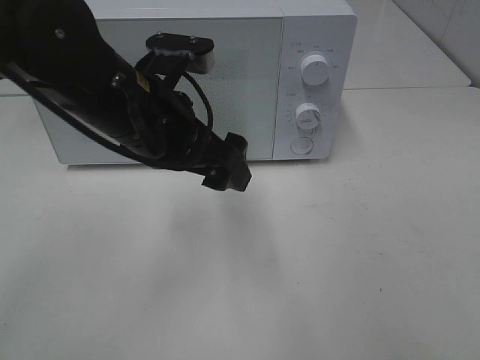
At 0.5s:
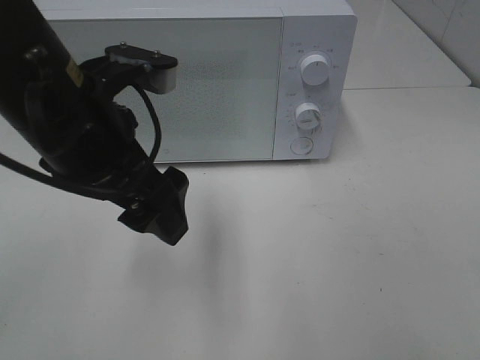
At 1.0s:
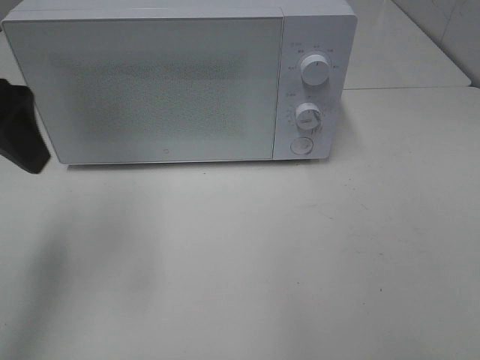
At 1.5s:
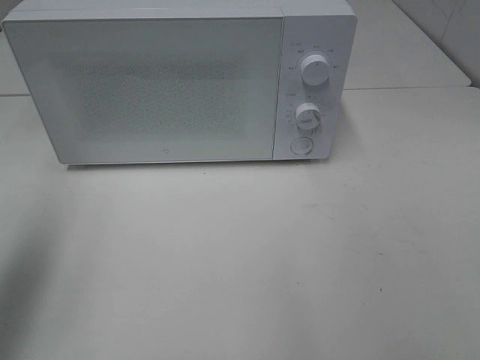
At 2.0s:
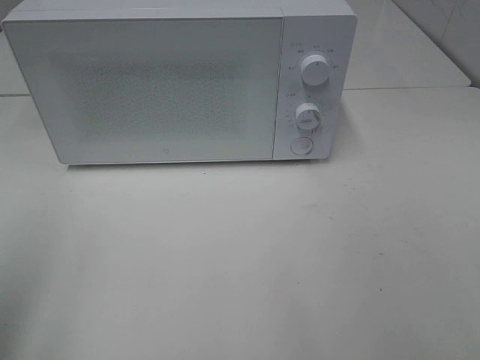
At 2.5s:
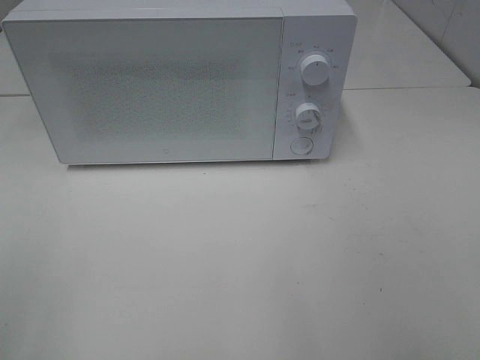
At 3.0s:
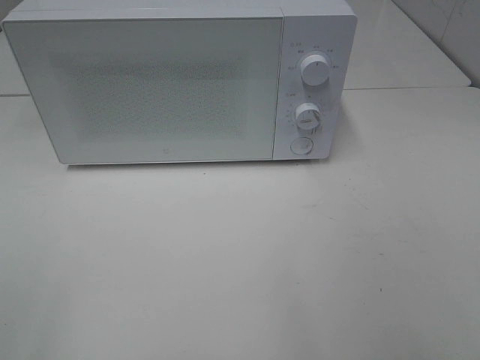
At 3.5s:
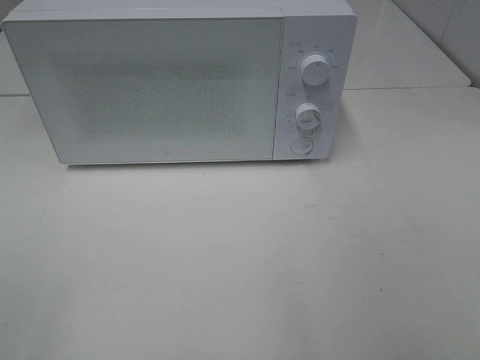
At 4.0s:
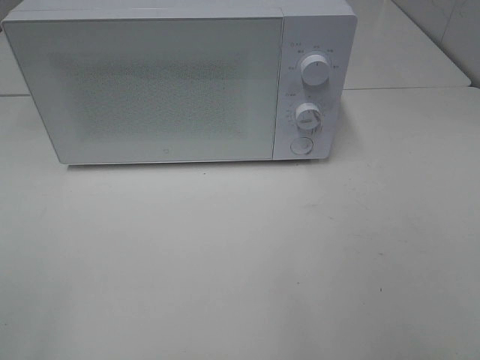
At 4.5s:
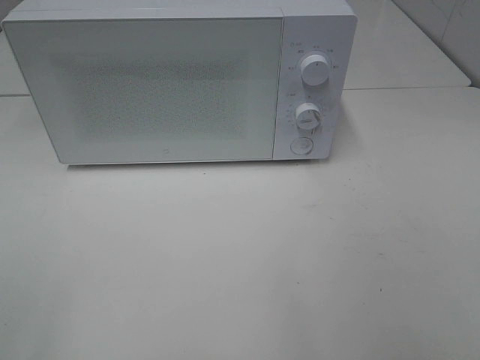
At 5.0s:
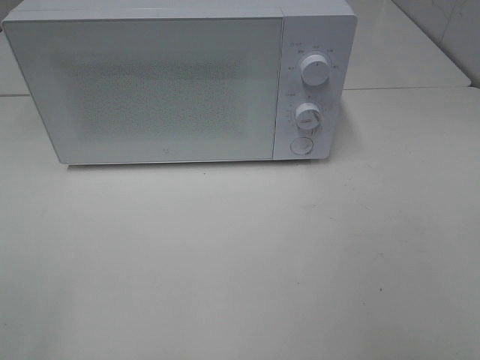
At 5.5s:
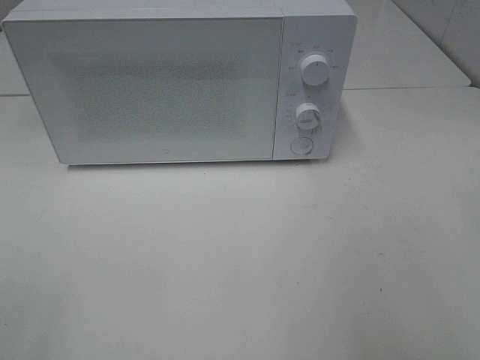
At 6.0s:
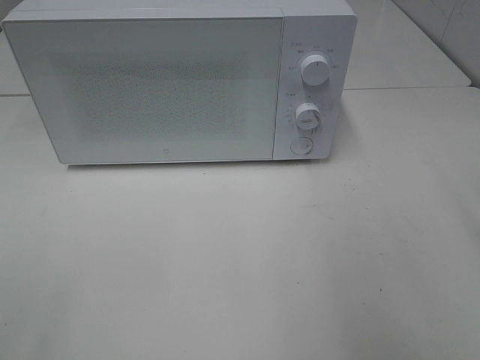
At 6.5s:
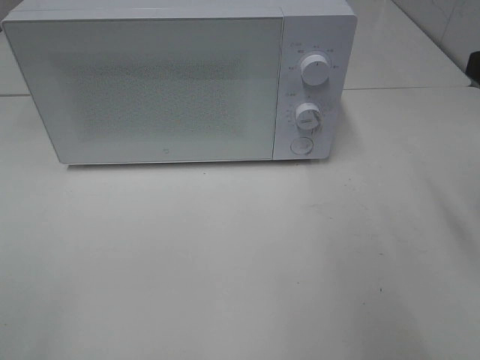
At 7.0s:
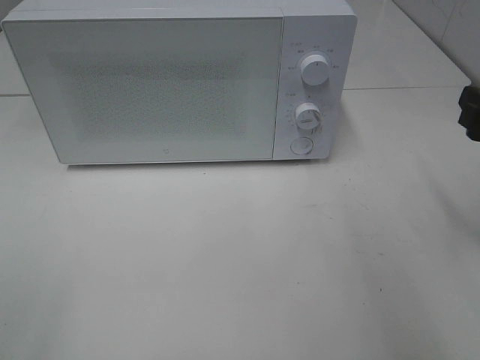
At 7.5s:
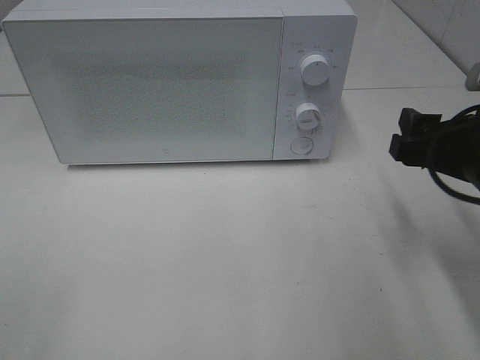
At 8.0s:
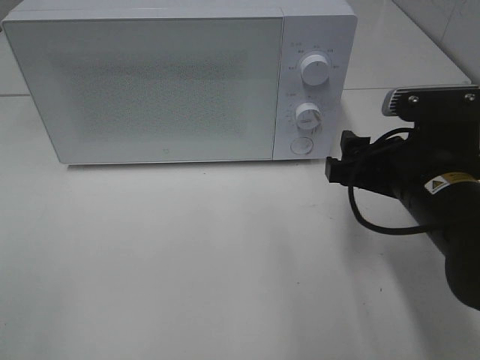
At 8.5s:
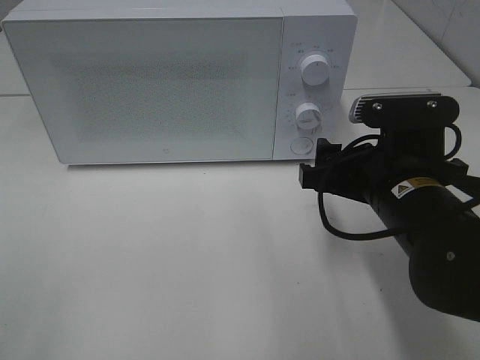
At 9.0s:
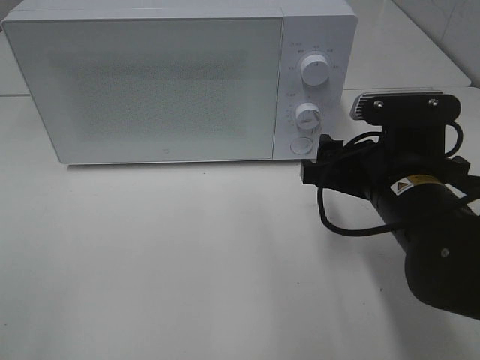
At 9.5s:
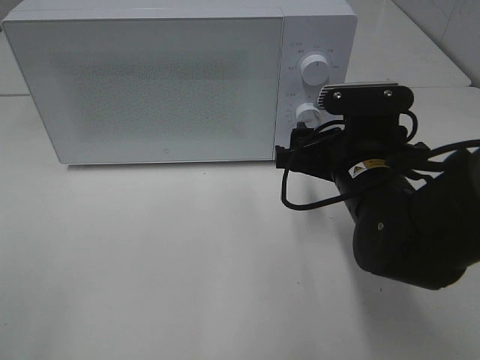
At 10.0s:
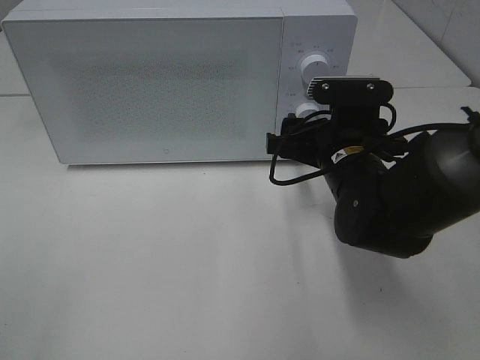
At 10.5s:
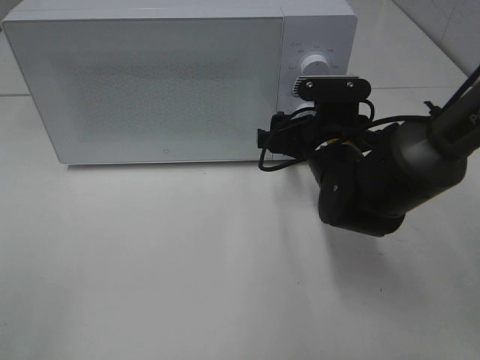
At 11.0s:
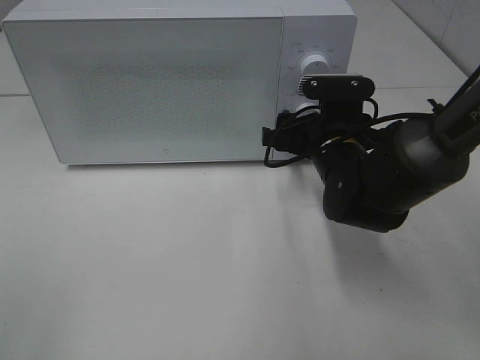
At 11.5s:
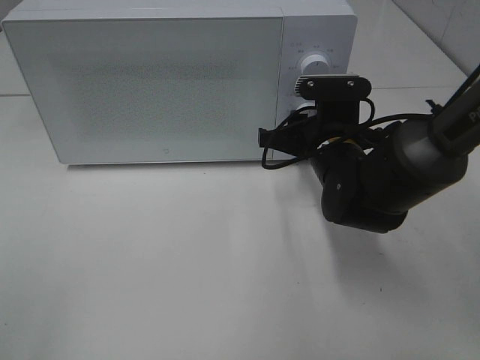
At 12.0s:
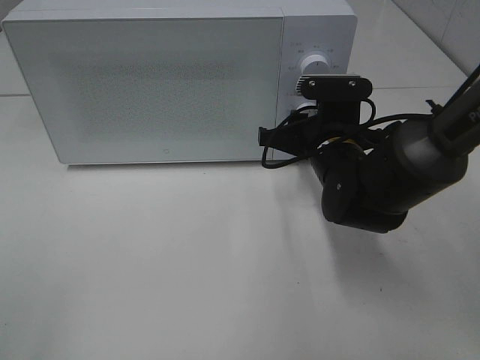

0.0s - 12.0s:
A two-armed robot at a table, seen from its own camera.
Task of the whole recording: Heat Sandwich.
0.0s - 2.0s: The left gripper moves to the left and backward, about 30 cm.
6.0s - 8.0s: The right gripper moves downward and to the left, about 20 cm.
8.0s - 10.0s: The right gripper goes some 10 cm forward and to the left.
10.0s - 12.0s: The right gripper closes.

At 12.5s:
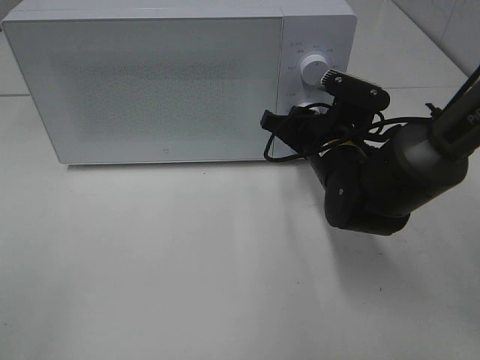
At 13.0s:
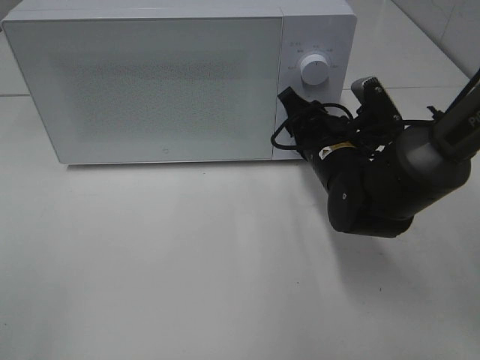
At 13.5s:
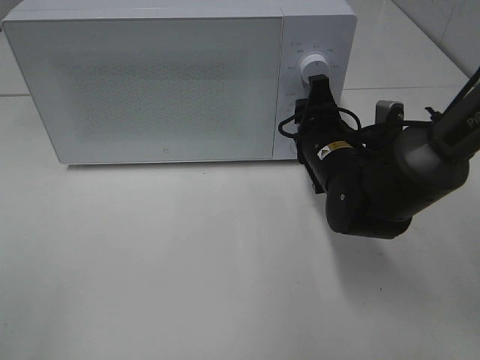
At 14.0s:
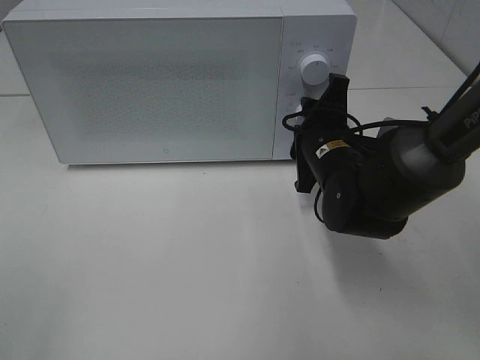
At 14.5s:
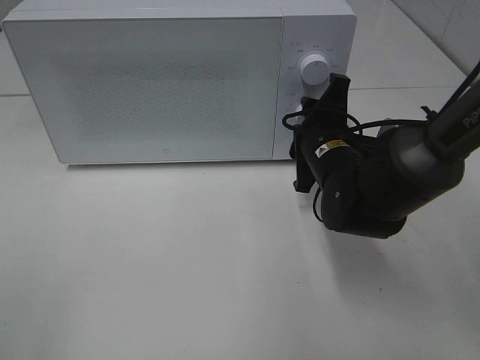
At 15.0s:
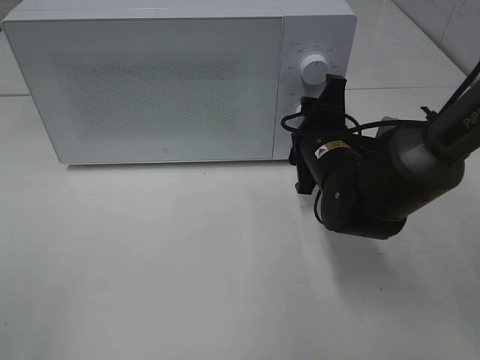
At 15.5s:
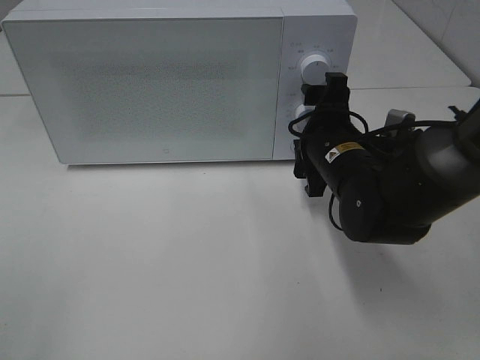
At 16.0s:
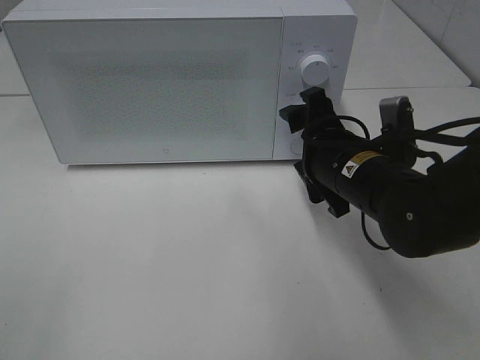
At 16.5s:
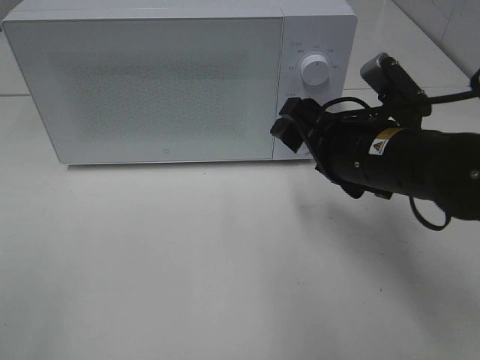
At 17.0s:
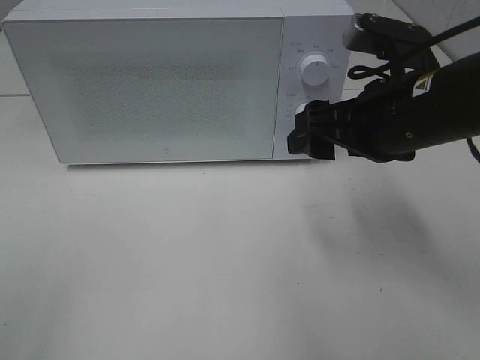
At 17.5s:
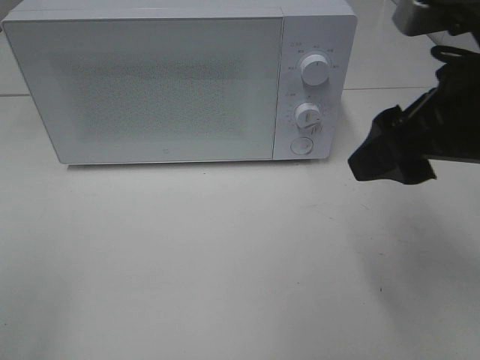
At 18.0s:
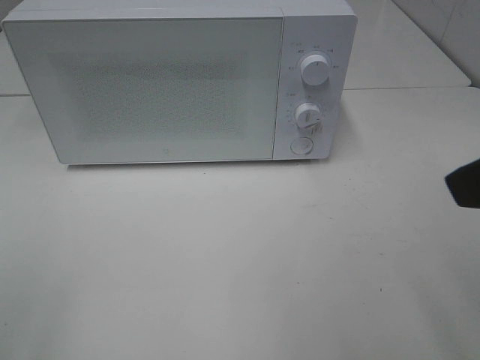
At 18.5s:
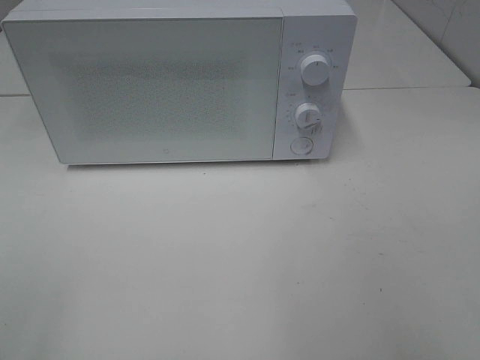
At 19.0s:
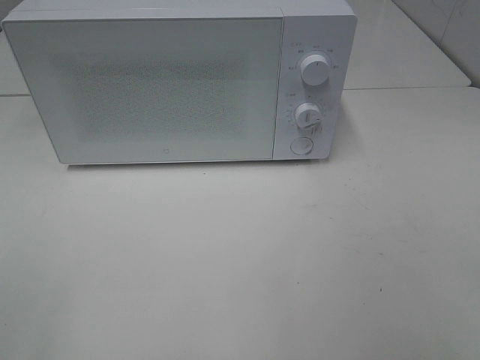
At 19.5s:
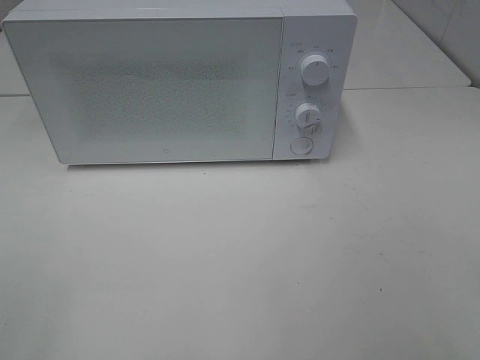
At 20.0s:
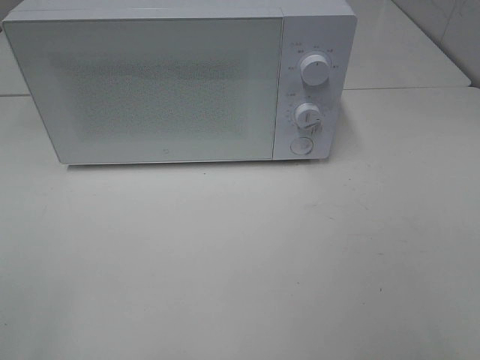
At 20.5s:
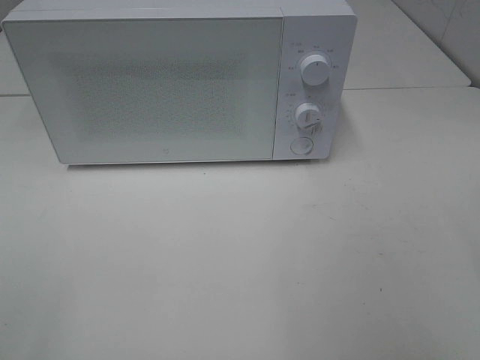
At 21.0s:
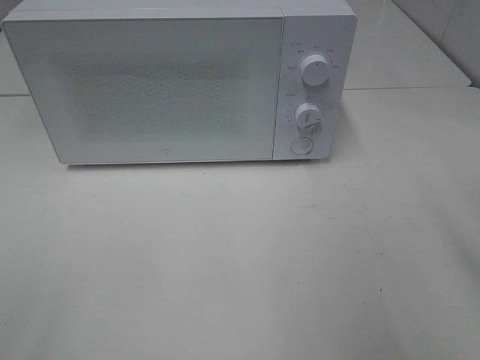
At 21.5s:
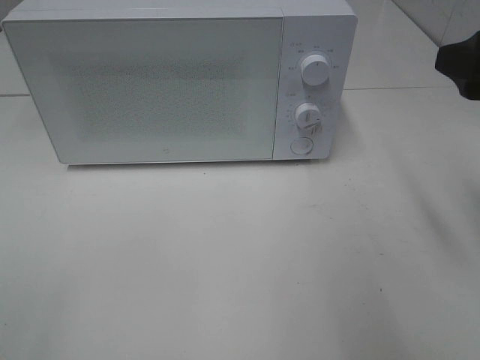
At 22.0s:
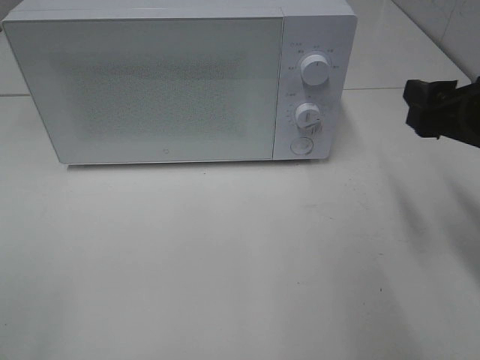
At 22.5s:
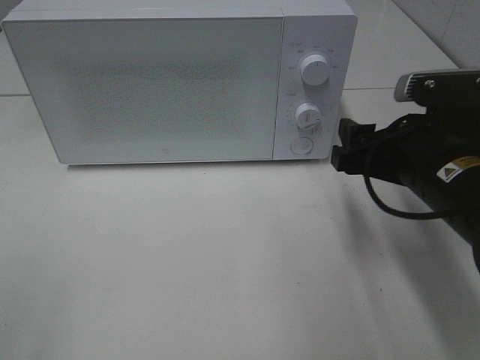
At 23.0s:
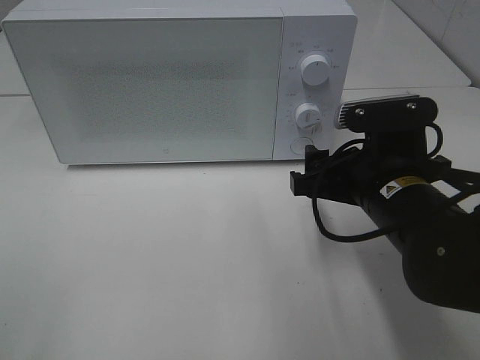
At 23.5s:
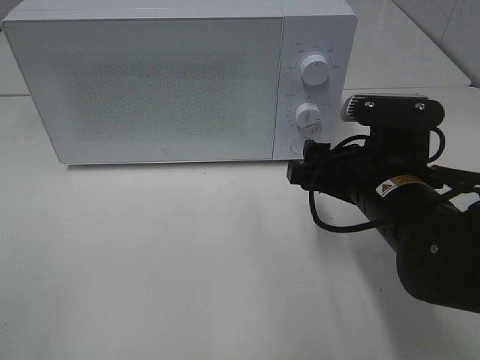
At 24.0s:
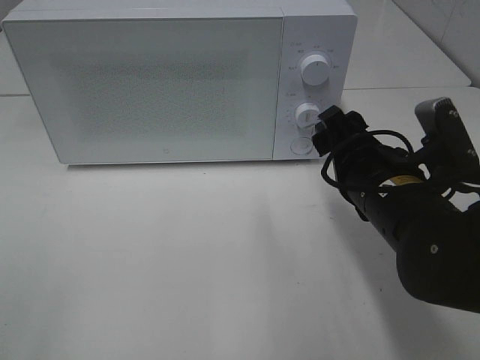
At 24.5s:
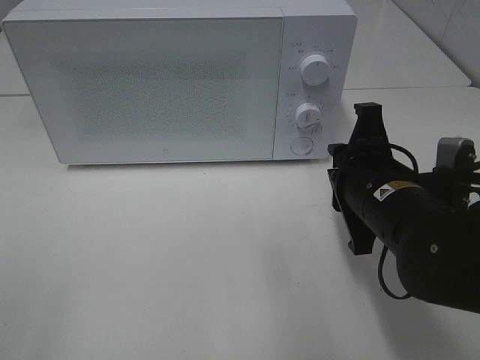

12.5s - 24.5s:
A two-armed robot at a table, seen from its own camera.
Task of the whole recording: Heat Sandwich.
Step, 12.5s - 15.5s: Right hand: twist timer button.
14.5s - 16.5s: The right gripper is displaced backward and upward by some 10 cm, and opens its fingers.
16.5s - 18.5s: The right gripper is displaced backward, upward and to the right by approximately 30 cm.
20.5s - 22.5s: The right gripper goes approximately 25 cm forward, downward and to the left.
22.5s - 24.5s: The right gripper ends up approximately 5 cm from where it was, and closes up.

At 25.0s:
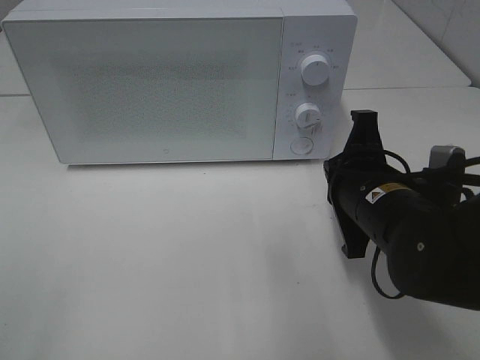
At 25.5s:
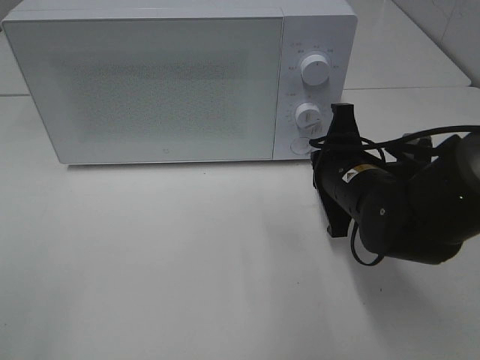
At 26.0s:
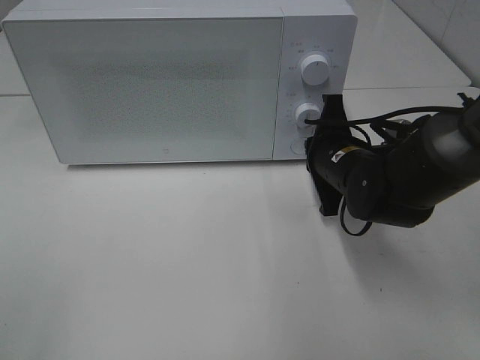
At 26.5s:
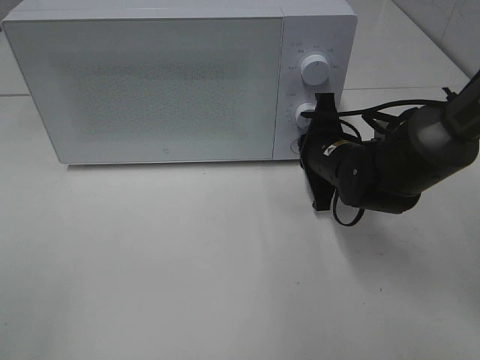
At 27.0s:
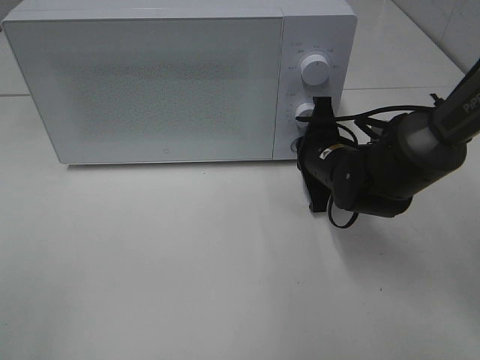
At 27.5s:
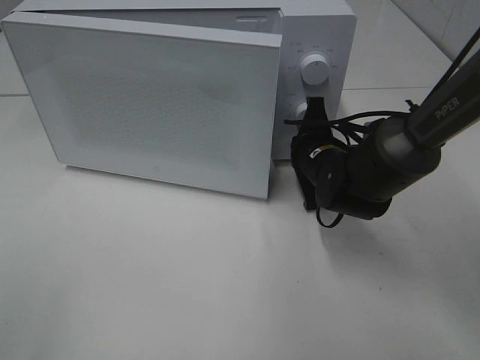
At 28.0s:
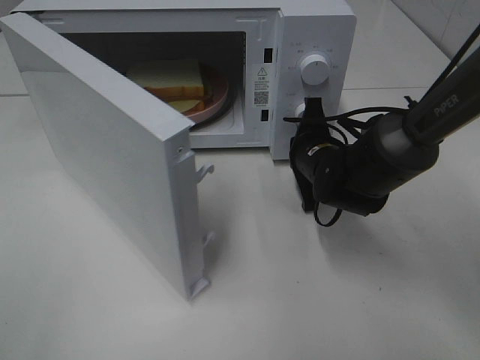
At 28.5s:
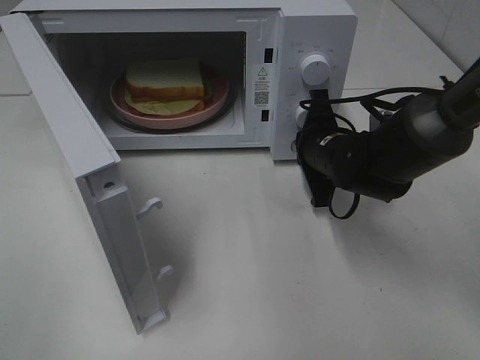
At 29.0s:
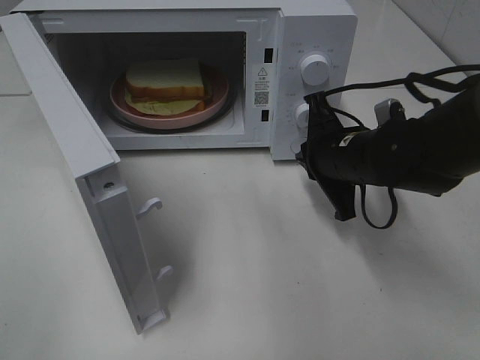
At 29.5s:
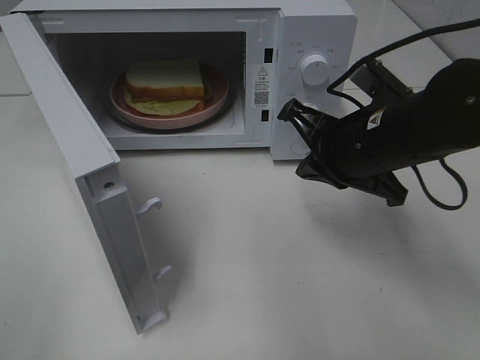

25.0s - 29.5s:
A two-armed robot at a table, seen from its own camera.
Task of the whole recording: Heat Sandwich.
Step, 25.0s - 29.0s: Right hand: press the switch.
25.0s - 27.0s: The right gripper moves forward, approximately 10 cm.
27.0s - 29.5s: The right gripper is displaced upward and backward by some 15 cm.
